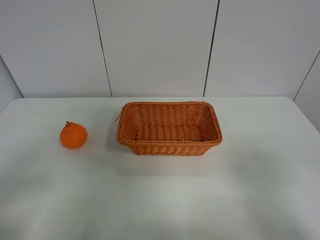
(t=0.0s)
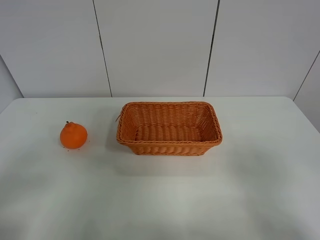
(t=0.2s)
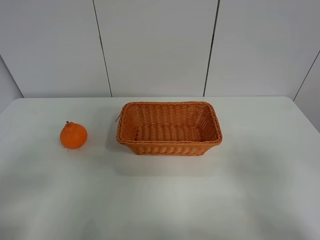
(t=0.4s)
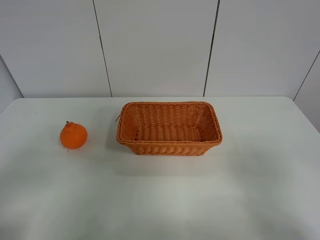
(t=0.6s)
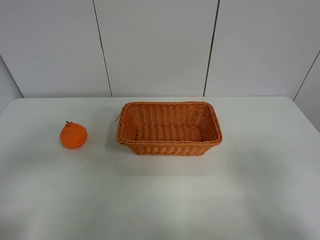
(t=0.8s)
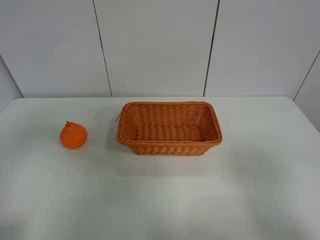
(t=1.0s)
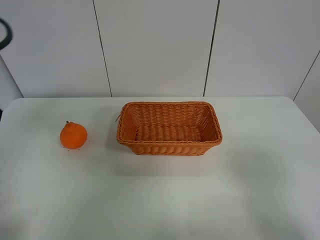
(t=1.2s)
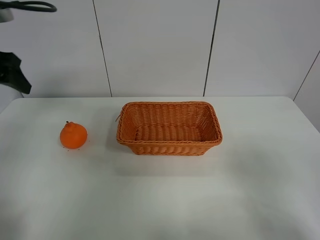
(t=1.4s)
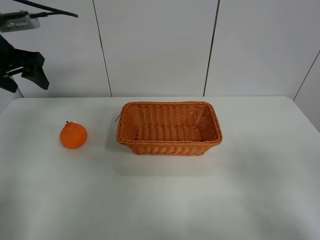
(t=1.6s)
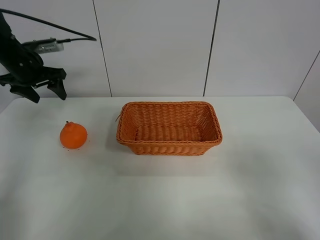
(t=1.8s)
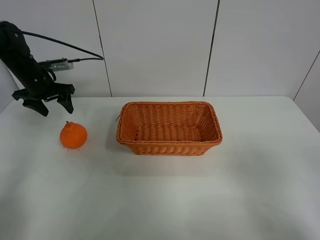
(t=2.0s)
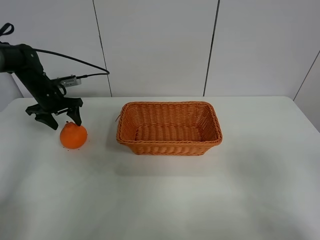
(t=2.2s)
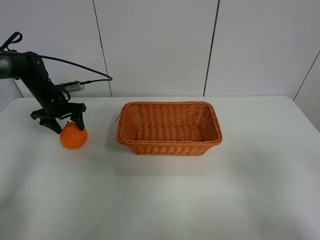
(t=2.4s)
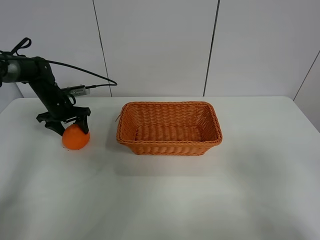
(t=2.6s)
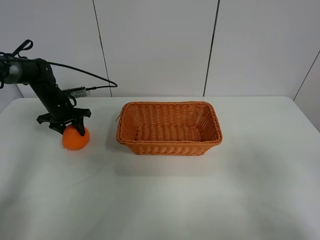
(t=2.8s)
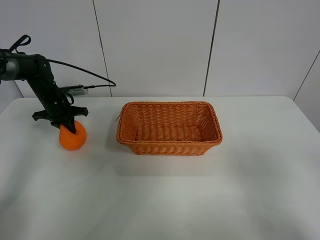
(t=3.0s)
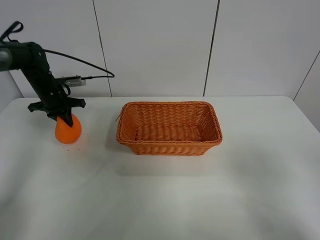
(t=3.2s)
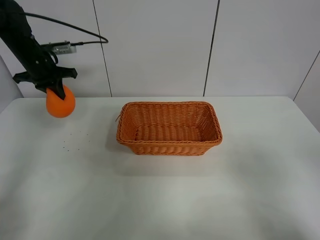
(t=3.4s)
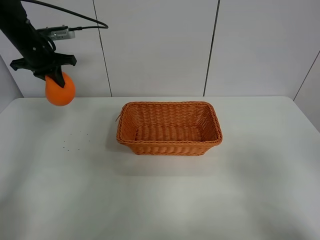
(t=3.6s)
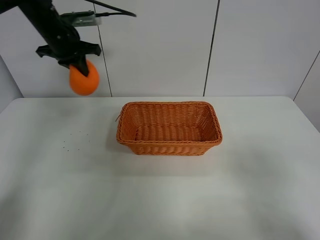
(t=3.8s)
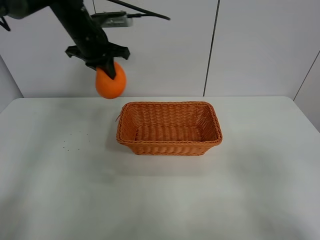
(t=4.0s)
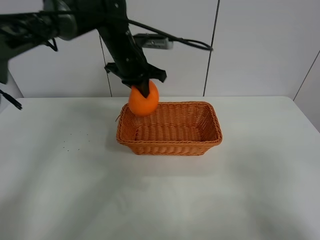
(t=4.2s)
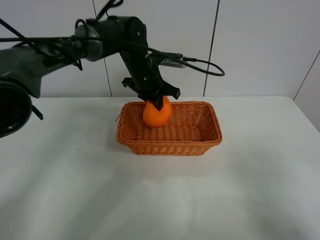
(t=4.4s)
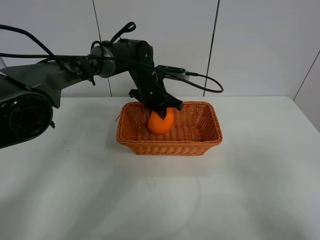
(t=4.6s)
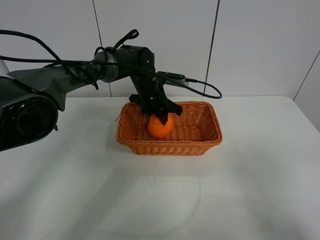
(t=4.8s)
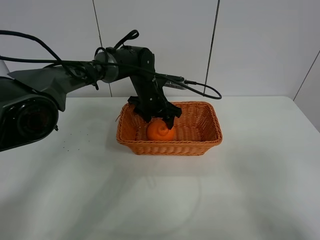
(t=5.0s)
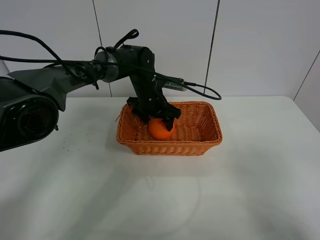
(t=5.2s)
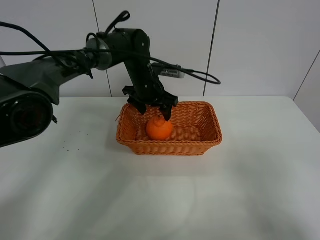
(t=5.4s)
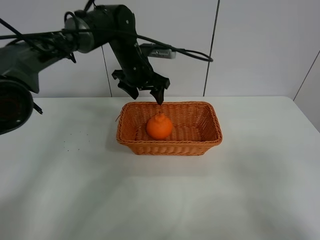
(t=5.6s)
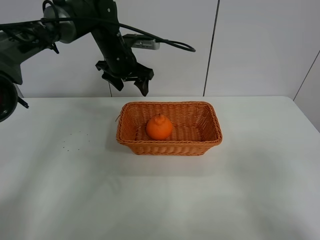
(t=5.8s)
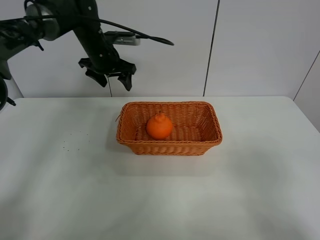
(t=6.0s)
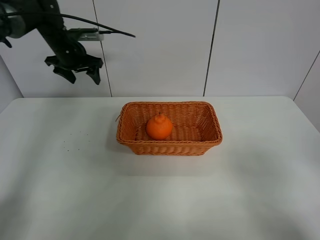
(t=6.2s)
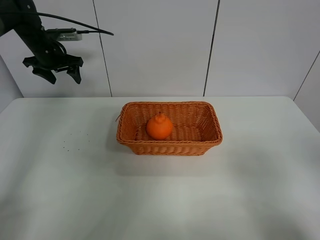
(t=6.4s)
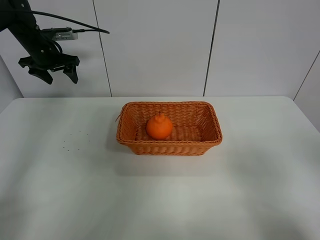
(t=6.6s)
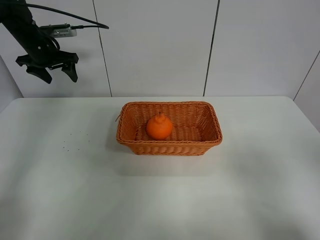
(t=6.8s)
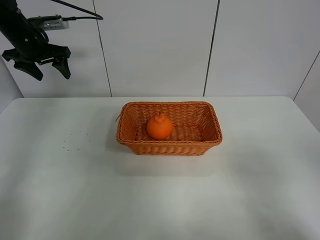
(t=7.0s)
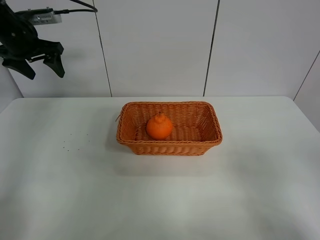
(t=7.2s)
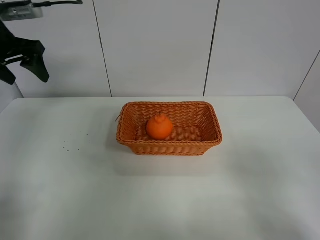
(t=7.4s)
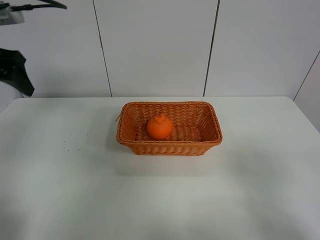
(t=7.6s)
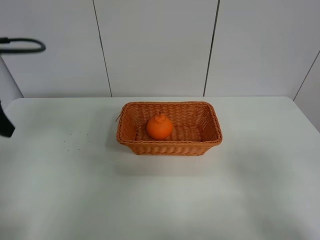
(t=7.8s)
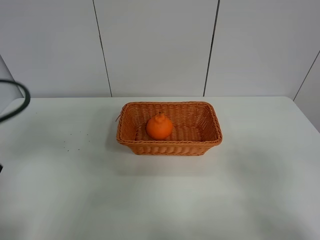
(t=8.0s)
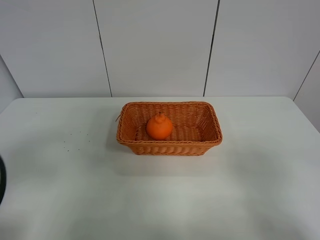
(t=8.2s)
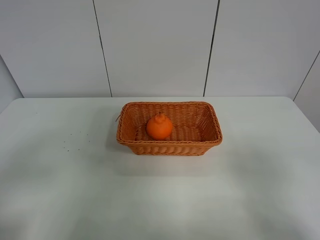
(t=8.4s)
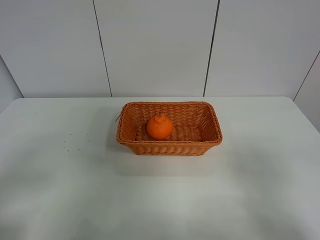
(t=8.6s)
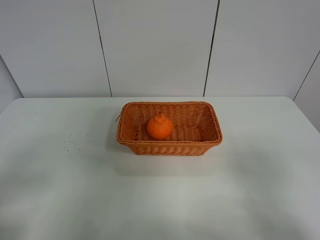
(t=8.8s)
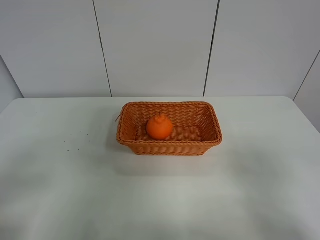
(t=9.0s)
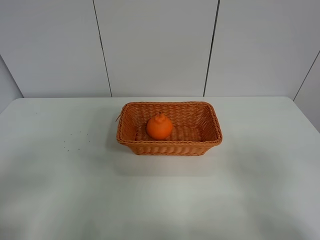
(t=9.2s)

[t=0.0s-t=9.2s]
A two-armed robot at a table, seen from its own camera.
Task of the whole recording: left gripper grabs oranges and puts them in the basket.
Step, t=0.0s to t=2.8s: Grasp the orange with left gripper.
Step, t=3.0s to t=6.0s: Place the orange in the basket with left gripper.
t=0.0s to t=1.6s: The left gripper is displaced forward by roughly 35 cm.
t=1.6s to t=3.0s: The left gripper is displaced downward and forward by approximately 20 cm, and closes its fingers.
t=3.0s to t=4.6s: The left gripper shifts about 30 cm to the right.
t=4.6s to t=6.2s: The left gripper moves to the left, about 25 cm, and opens.
t=6.2s to t=7.6s: The left gripper heads backward and upward, covering approximately 25 cm.
t=7.6s to t=9.2s: The left gripper travels backward by roughly 30 cm.
